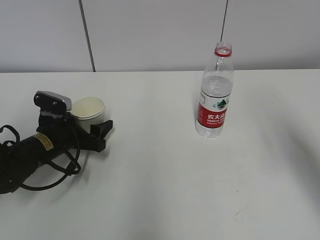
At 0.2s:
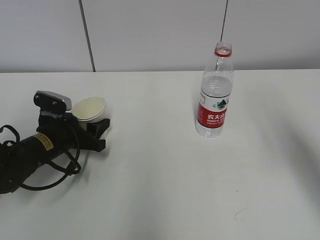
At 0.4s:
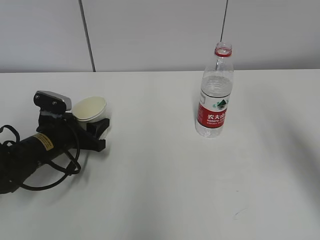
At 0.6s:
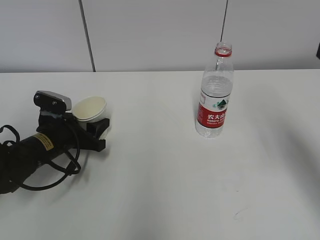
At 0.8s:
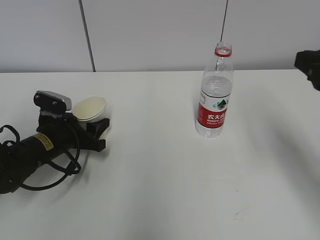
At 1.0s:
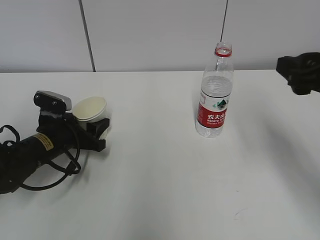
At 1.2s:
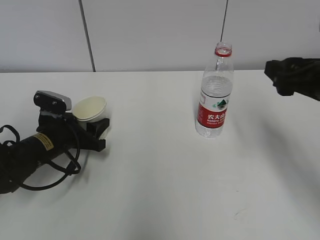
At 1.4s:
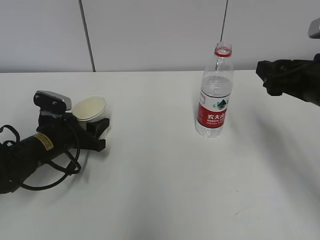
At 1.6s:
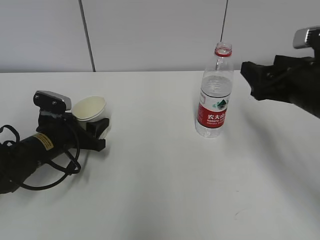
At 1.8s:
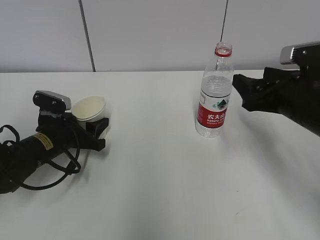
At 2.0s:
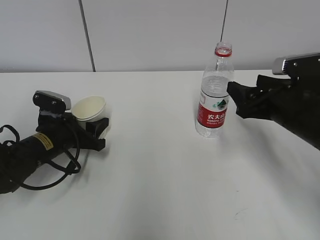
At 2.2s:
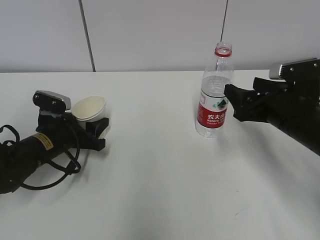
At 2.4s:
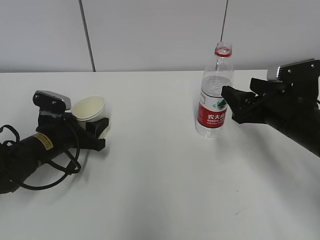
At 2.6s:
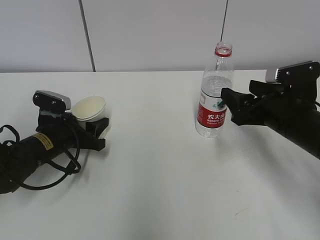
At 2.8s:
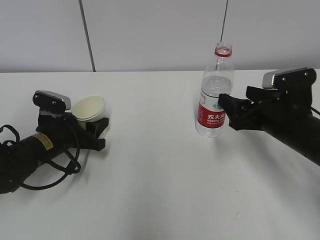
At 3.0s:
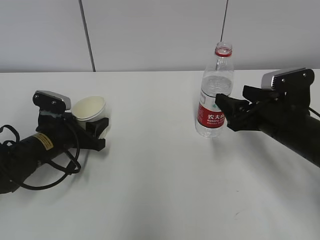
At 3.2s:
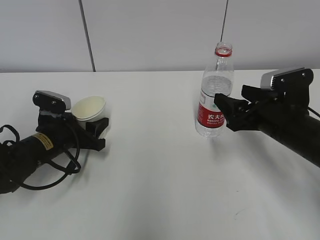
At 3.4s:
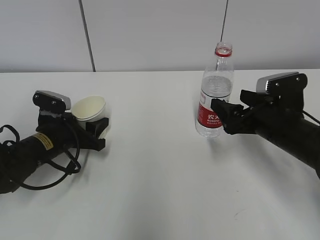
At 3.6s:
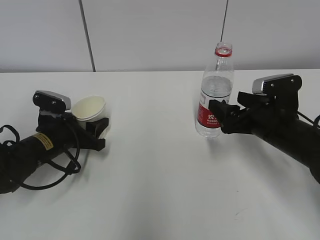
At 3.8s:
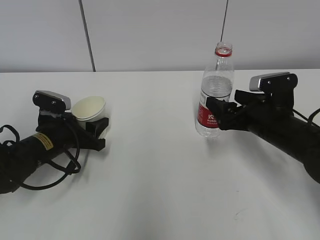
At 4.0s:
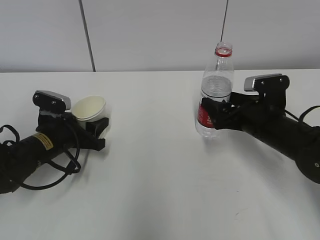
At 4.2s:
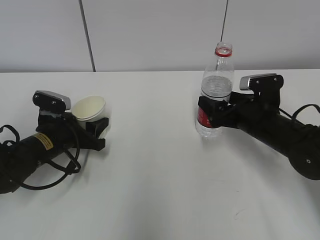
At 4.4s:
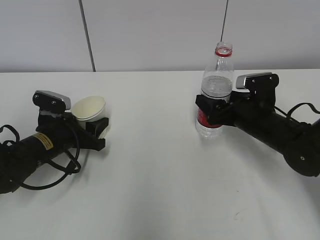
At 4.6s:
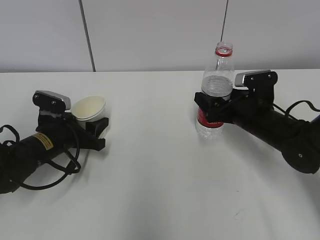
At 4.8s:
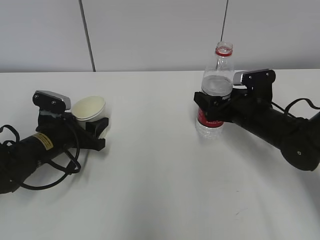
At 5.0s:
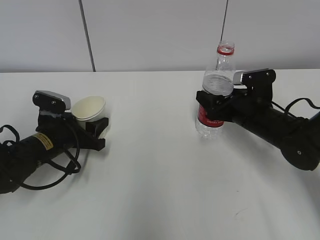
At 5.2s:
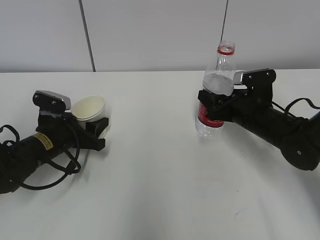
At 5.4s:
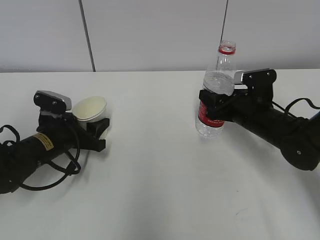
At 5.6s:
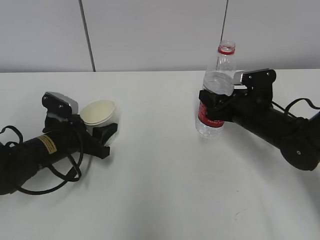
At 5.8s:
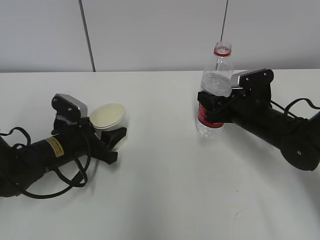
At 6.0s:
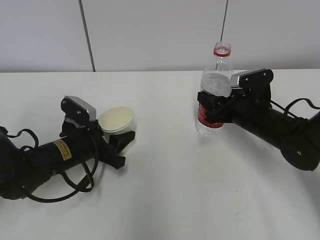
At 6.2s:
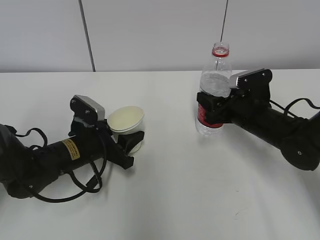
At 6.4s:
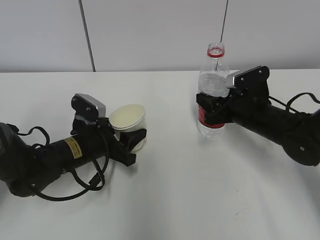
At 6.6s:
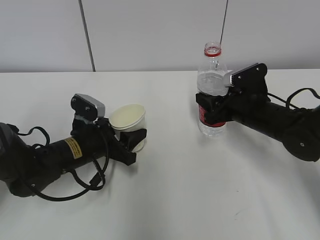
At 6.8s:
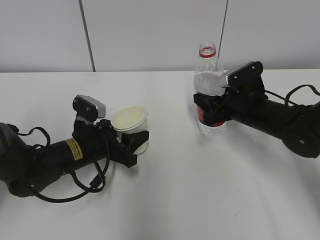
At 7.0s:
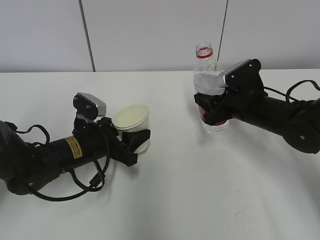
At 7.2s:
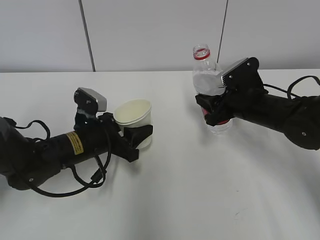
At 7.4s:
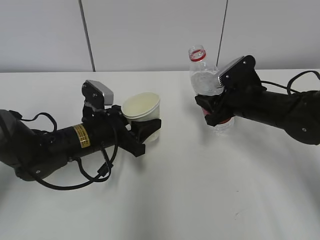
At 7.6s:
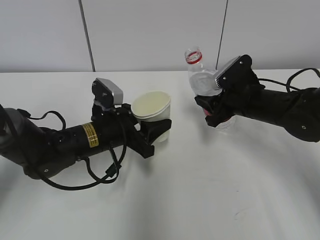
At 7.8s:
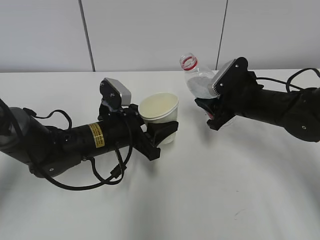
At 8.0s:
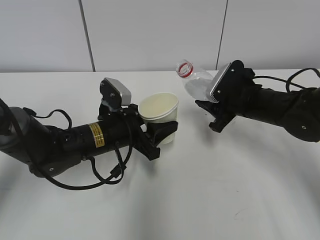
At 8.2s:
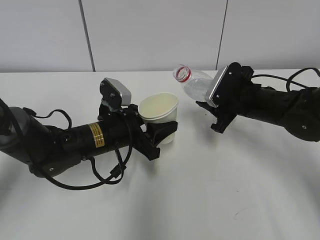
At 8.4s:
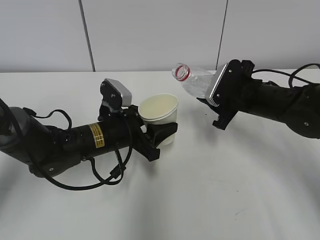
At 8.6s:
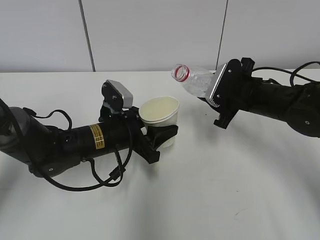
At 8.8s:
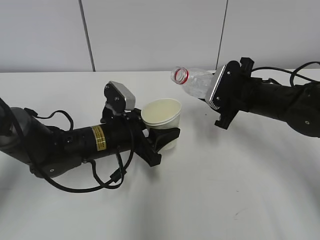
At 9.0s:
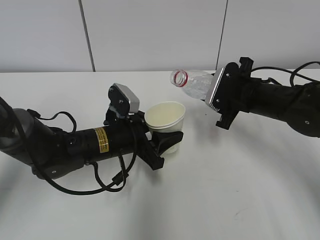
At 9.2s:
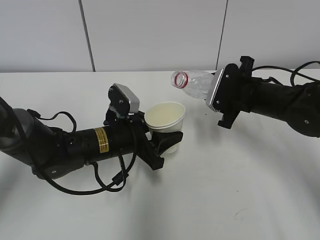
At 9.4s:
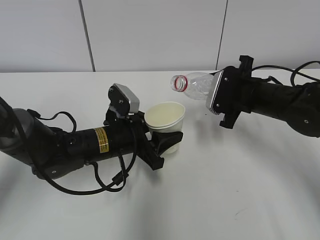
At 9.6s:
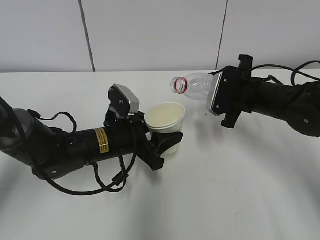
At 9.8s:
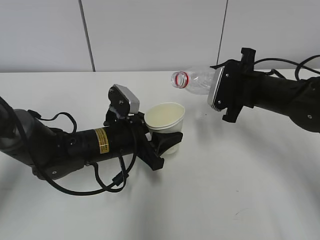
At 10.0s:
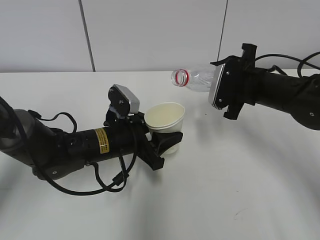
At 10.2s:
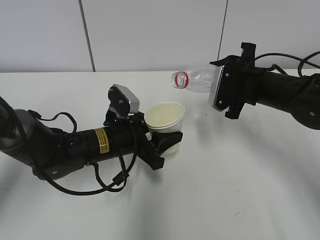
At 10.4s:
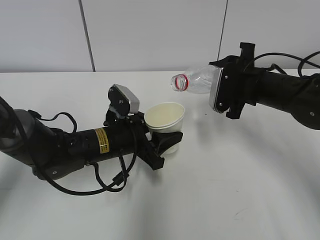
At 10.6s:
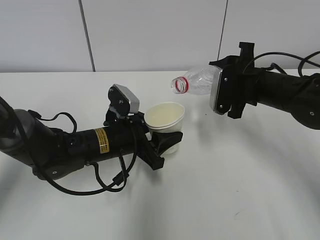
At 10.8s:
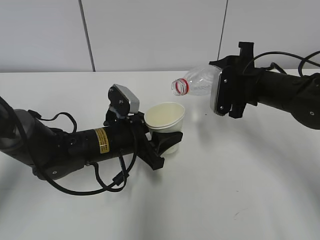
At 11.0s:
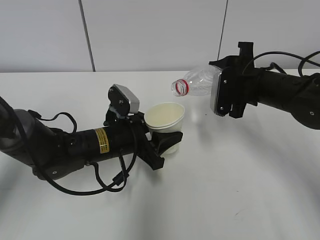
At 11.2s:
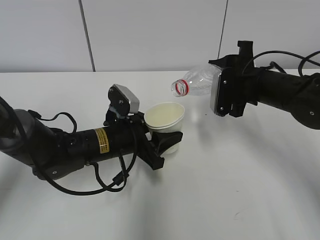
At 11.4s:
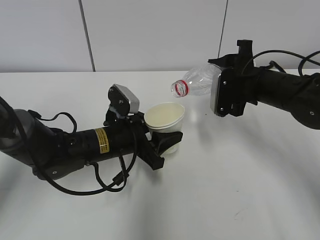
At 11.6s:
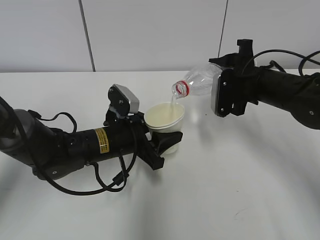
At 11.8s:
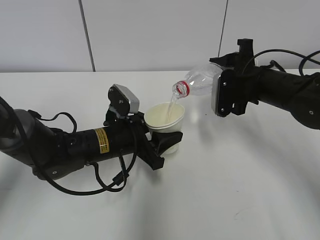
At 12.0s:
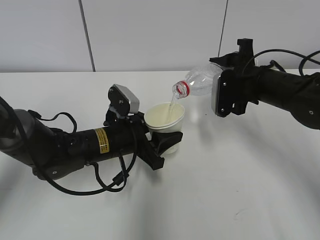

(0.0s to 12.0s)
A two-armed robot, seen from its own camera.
Step, 3.8s - 4.4s: Grab the water bottle with the right hand.
Step, 4.6s - 8.6s: Lift the paper cup with the left hand.
Step, 8.8s - 12.0s: Fill water with the left hand.
Step, 8.8s - 12.0s: Pour water with the right hand.
0.0s - 1.6s: The right gripper moves forward and downward, roughly 10 cm.
1.6s - 3.0s: The right gripper travels downward by some 10 cm.
3.0s - 4.4s: The right gripper is displaced forward by about 5 cm.
4.4s - 6.0s: The right gripper closes.
6.0s - 7.6s: The left gripper goes about 5 cm to the right.
9.0s - 10.4s: The grippers stay close to where they were, moving slightly.
10.4s - 12.0s: The grippers stay close to where they were, moving slightly.

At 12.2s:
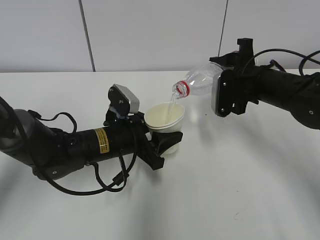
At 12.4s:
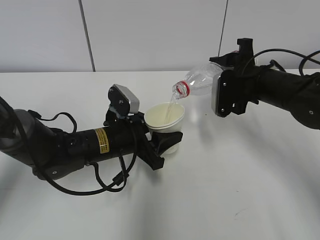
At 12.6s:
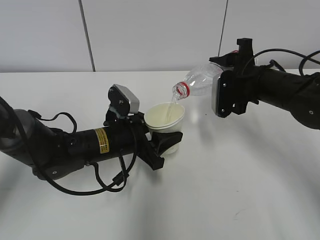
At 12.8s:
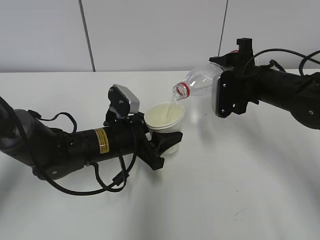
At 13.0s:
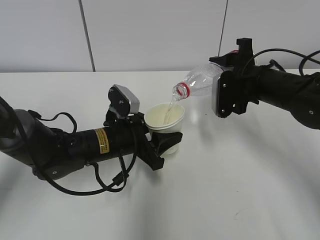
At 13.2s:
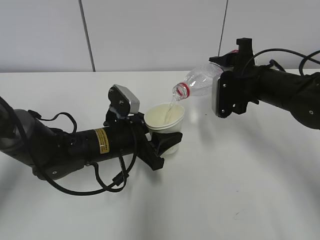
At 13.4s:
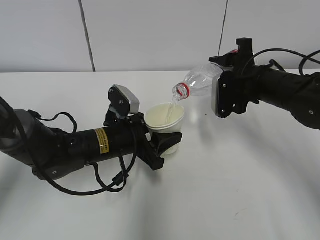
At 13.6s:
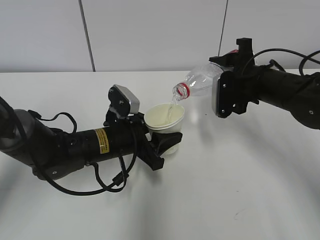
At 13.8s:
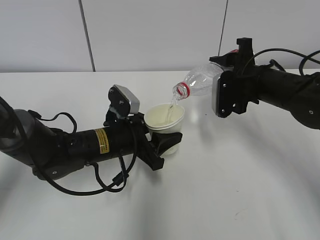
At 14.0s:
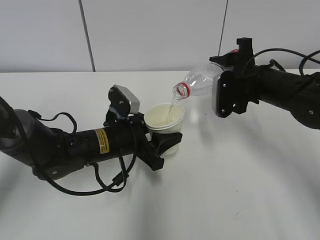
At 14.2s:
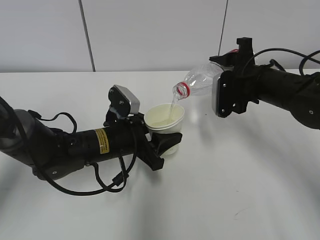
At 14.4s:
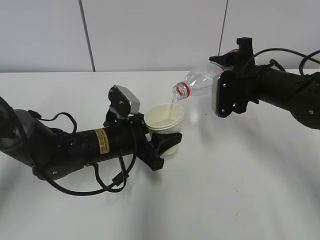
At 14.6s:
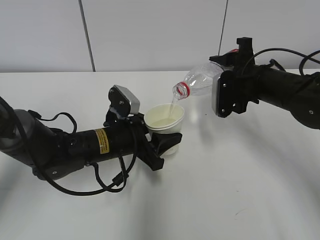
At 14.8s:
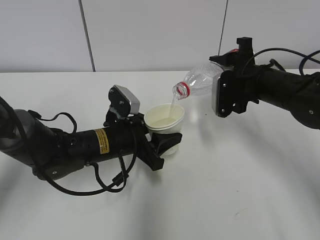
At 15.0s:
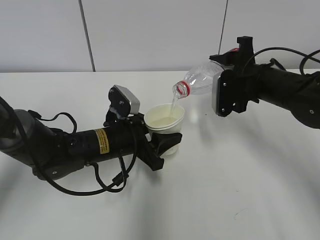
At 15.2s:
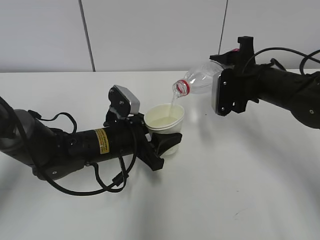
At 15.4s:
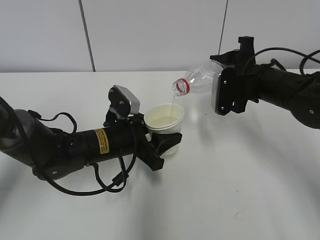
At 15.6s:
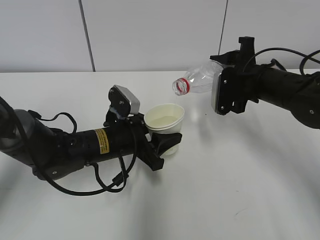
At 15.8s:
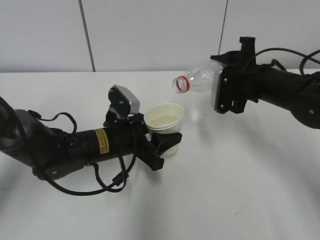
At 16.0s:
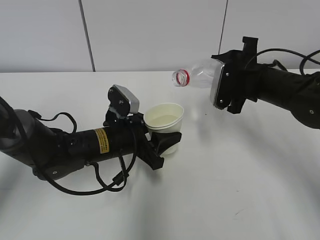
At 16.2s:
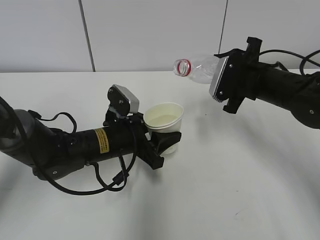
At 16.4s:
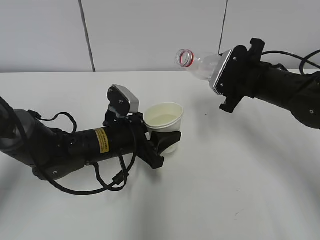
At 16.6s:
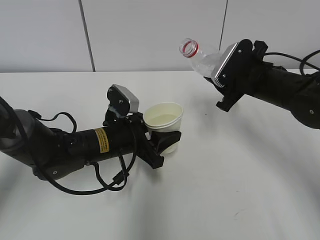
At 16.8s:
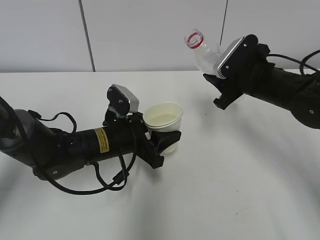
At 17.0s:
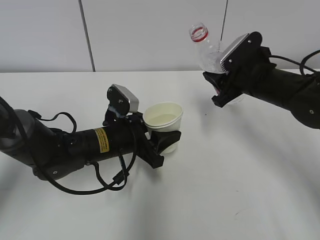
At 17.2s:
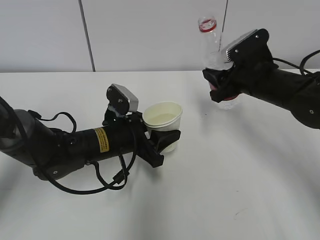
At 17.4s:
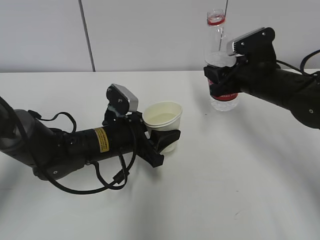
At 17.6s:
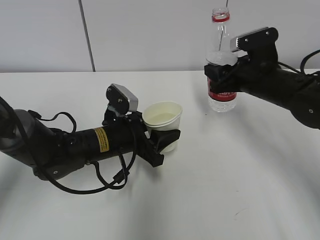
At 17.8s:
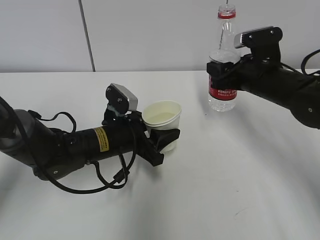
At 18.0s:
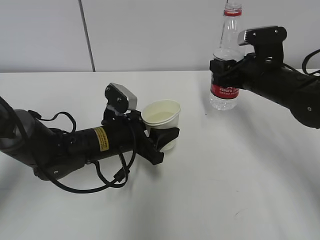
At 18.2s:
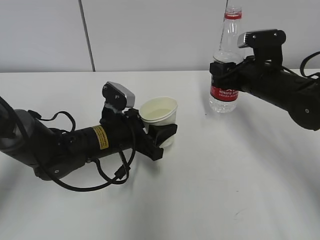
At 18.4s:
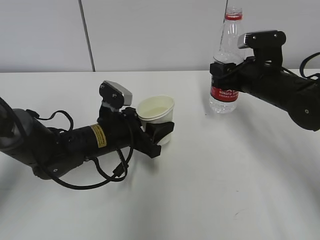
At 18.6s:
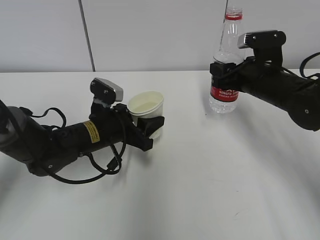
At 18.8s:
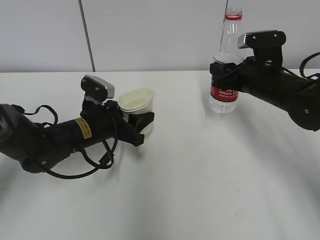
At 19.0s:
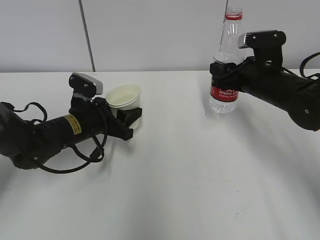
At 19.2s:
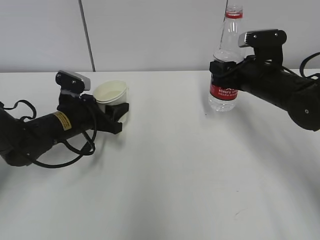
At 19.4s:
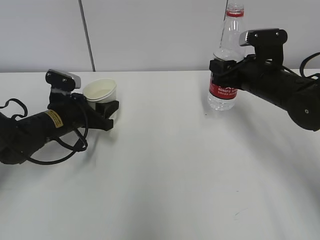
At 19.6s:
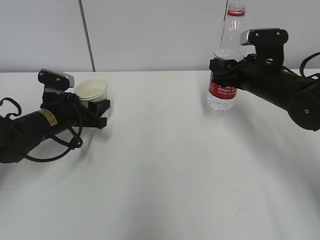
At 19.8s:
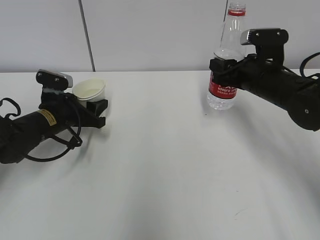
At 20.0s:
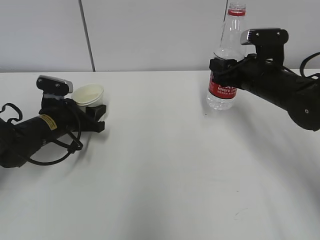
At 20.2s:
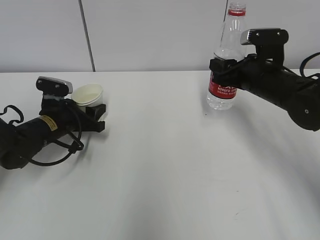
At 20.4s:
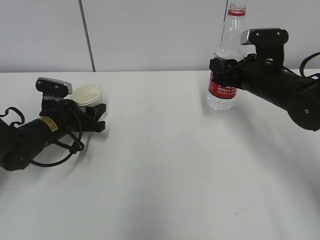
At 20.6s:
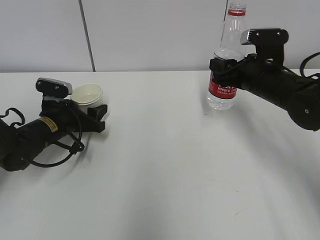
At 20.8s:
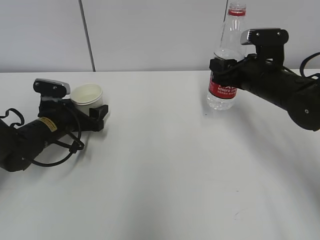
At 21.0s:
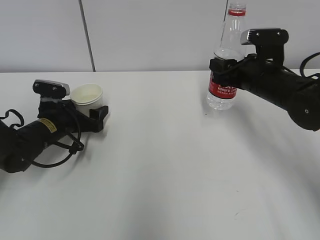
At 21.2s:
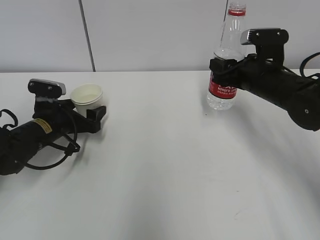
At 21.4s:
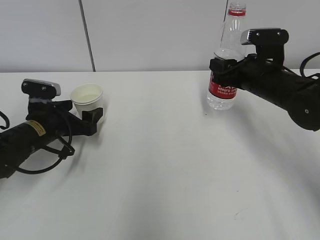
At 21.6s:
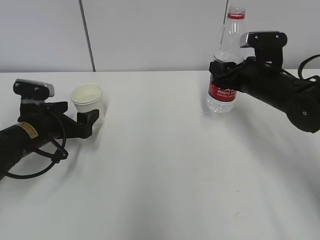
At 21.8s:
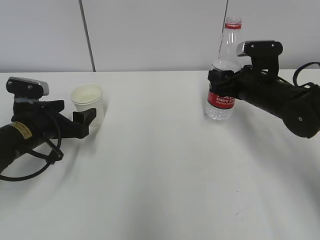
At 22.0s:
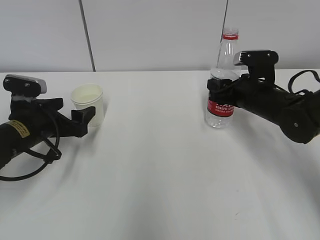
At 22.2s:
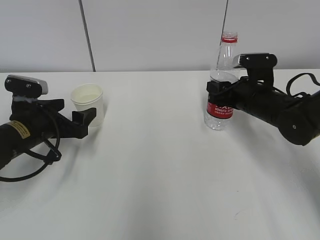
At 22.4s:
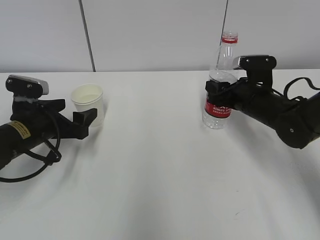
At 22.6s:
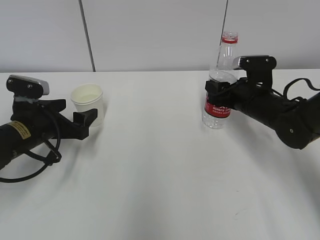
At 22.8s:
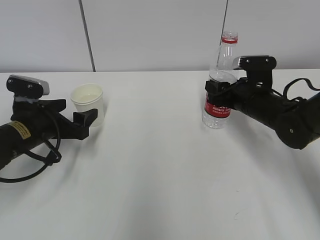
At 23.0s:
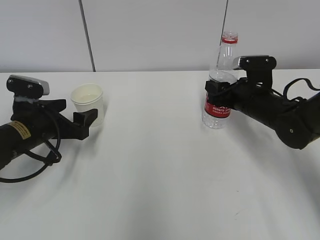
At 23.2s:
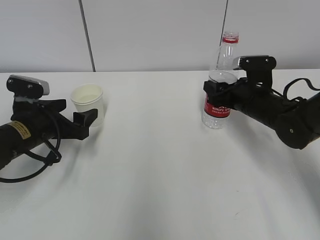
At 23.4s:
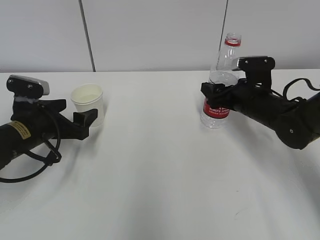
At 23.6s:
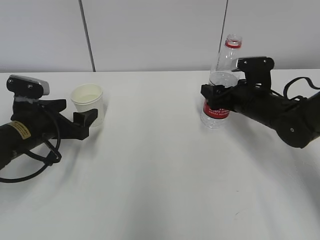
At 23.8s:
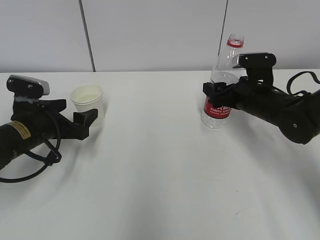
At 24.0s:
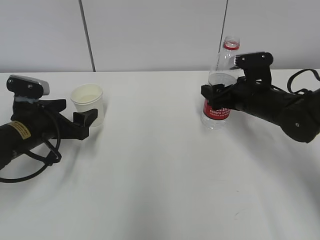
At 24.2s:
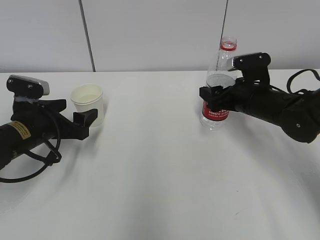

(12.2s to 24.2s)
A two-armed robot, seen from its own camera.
Step, 14.2s - 16.2s: Place the paper cup with the left hand.
Step, 16.4s - 22.8s: Place the water bottle with the right hand.
12.2s - 15.2s: Both grippers stay put.
18.2s - 19.8s: The left gripper heads to the left and forward, covering about 15 cm.
19.8s - 21.2s: The left gripper opens.
21.2s - 22.6s: The left gripper heads backward, covering approximately 5 cm. The right gripper heads downward, covering roughly 5 cm.
22.6s - 24.2s: The right gripper opens.
